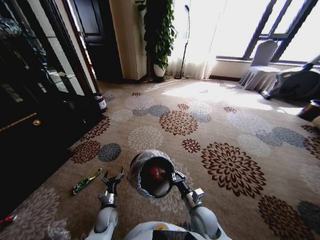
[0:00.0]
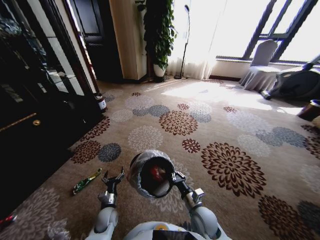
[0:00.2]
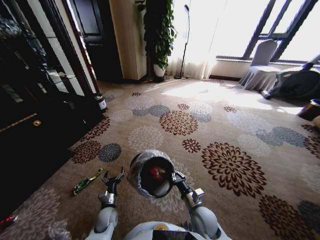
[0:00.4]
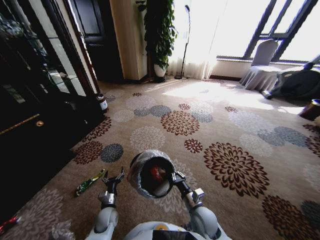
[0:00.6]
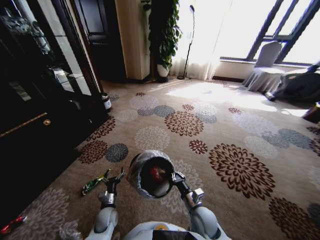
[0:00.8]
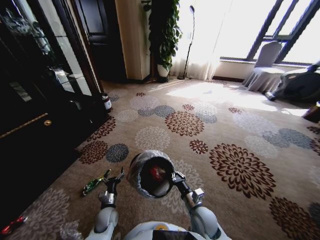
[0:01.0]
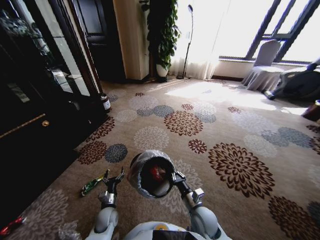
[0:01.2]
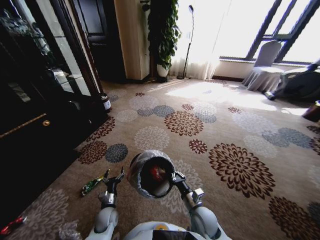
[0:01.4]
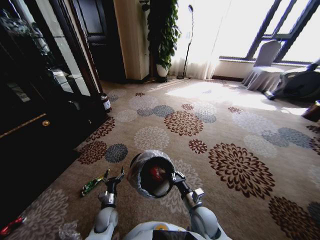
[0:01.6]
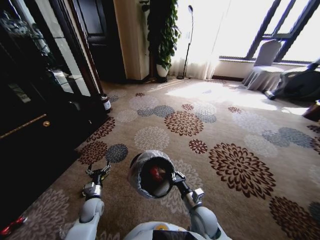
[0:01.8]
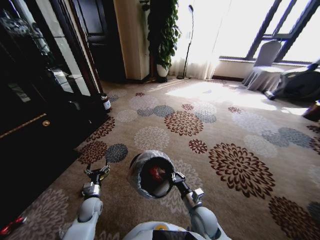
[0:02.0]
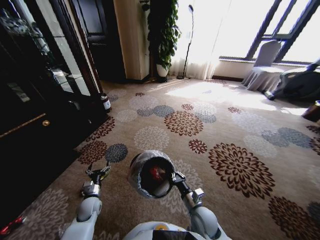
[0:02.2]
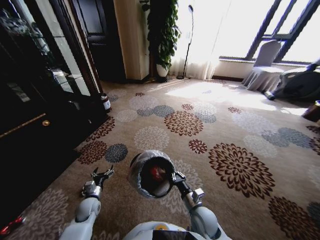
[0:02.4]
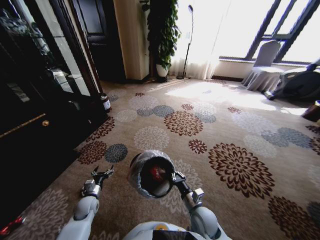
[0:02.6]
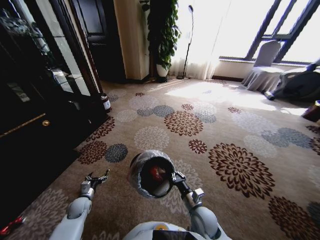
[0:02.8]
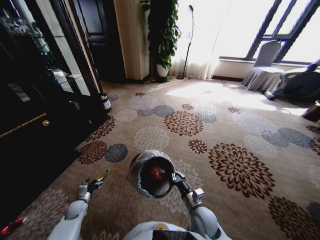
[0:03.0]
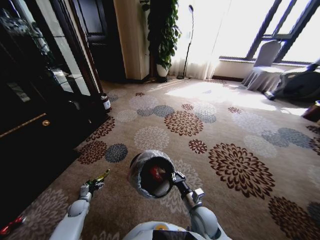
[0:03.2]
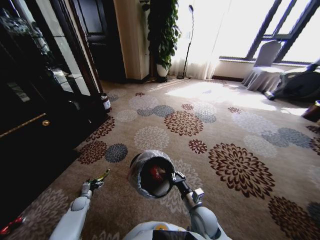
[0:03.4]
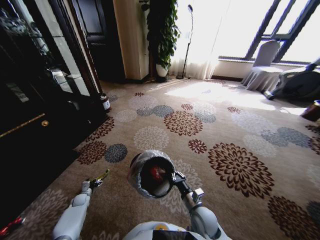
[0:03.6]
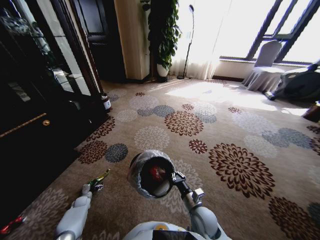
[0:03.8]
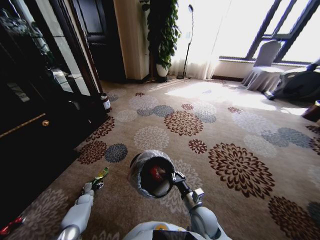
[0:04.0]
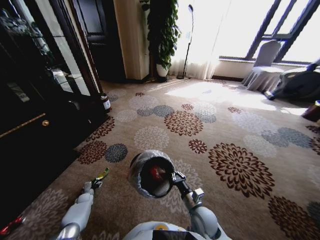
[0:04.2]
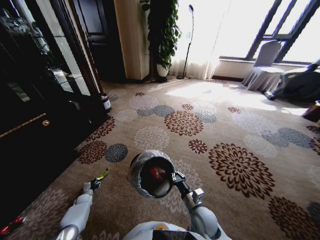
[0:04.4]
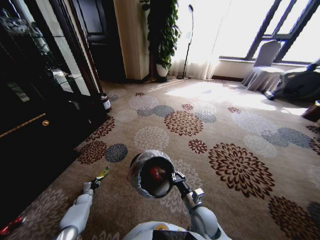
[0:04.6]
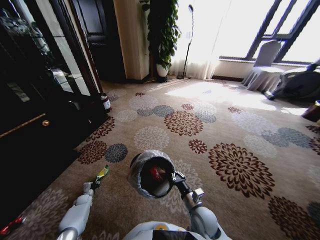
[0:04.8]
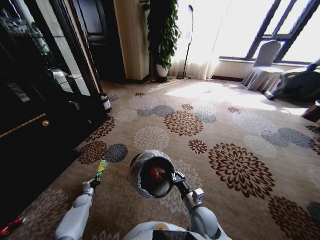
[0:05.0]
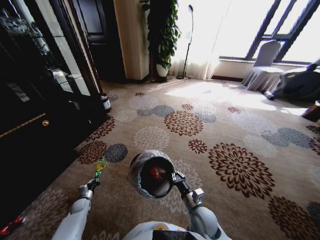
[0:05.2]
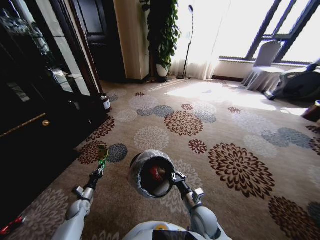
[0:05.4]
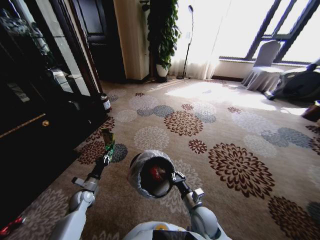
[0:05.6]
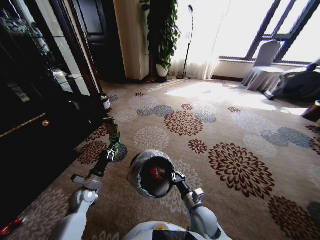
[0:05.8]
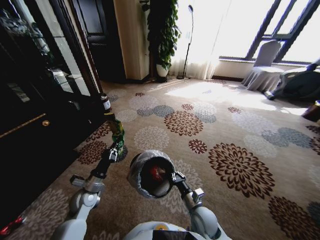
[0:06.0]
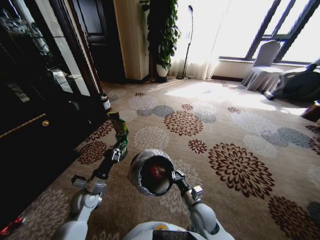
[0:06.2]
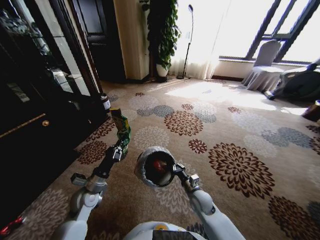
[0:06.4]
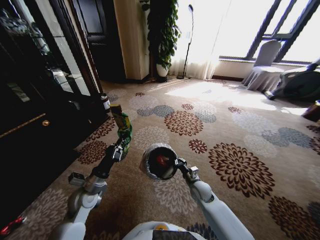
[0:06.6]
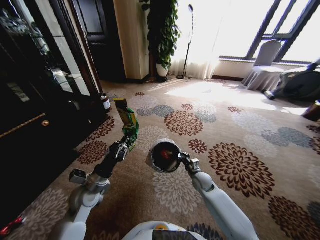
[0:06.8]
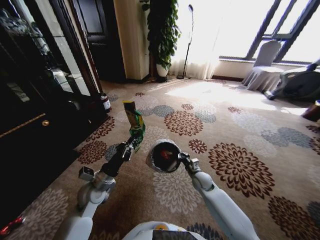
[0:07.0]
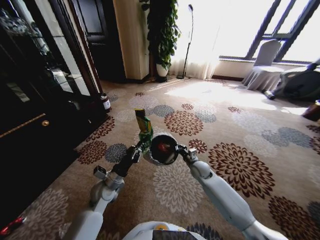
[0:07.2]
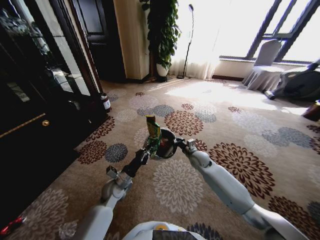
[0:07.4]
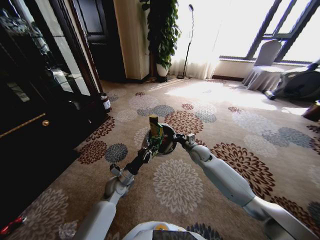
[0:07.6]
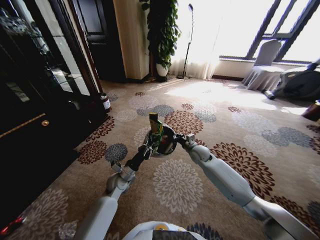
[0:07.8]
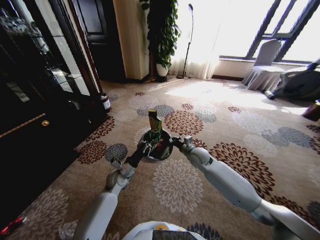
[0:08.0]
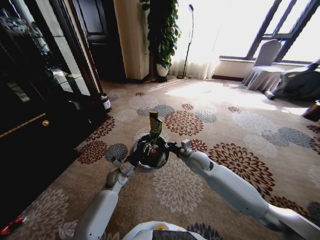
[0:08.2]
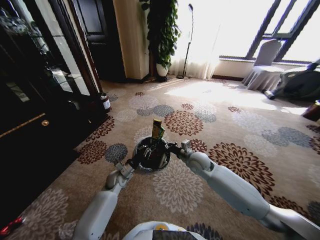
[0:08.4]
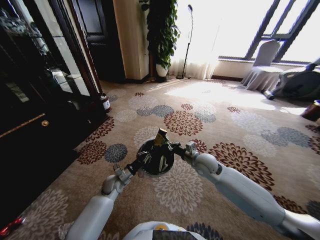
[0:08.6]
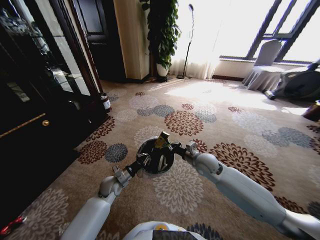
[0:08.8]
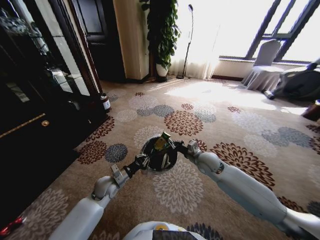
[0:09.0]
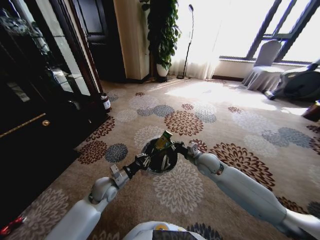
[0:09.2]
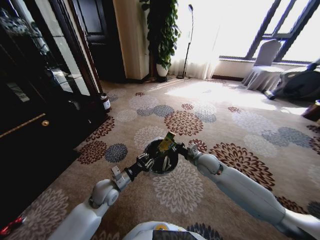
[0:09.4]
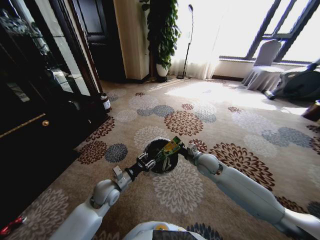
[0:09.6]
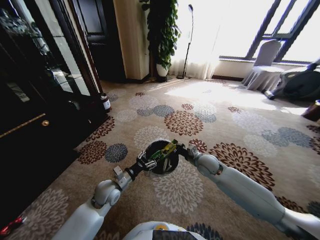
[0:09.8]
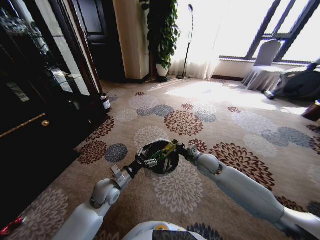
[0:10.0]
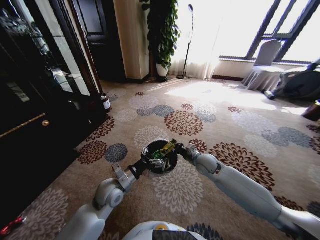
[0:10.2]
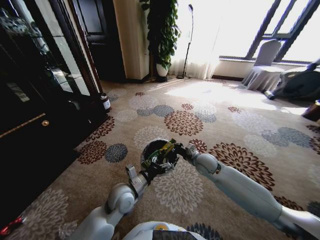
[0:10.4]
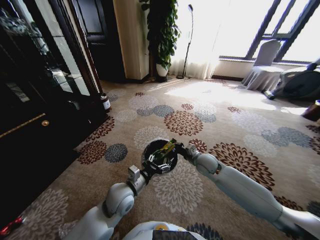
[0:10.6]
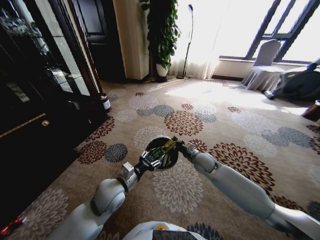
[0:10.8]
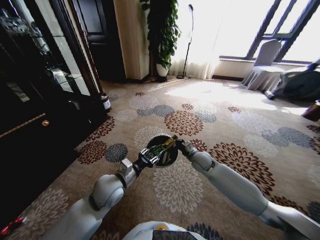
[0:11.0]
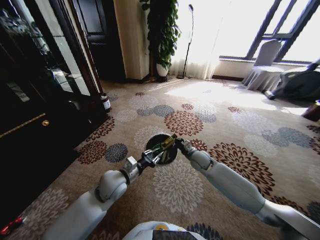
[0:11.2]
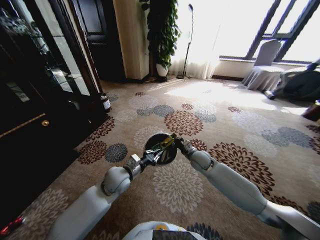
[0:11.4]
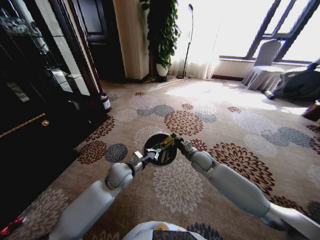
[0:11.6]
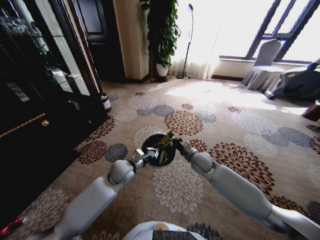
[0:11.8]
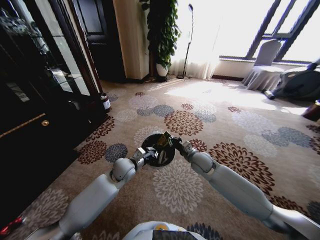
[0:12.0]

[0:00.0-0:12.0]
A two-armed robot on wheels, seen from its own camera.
Task of the whole recording: Pick up the trash from the ground and place it into the trash bin.
0:01.6 to 0:03.0: The left gripper travels to the left by some 20 cm.
0:03.0 to 0:04.4: The left gripper heads downward and forward, covering approximately 10 cm, and closes up.
0:04.4 to 0:06.0: The left gripper travels upward and to the right by roughly 30 cm, and closes up.
0:06.0 to 0:07.6: The left gripper heads to the right and forward, covering approximately 15 cm. The right gripper is displaced forward by roughly 25 cm.
0:07.6 to 0:09.0: The right gripper shifts roughly 10 cm backward.
0:09.0 to 0:10.4: The left gripper shifts about 15 cm to the right, upward and backward, and opens its fingers.
0:10.4 to 0:12.0: The left gripper heads forward, covering some 10 cm, and closes.

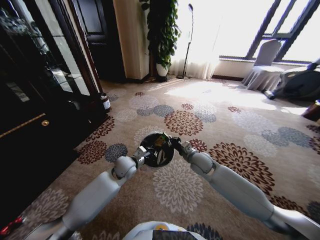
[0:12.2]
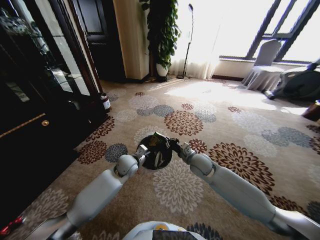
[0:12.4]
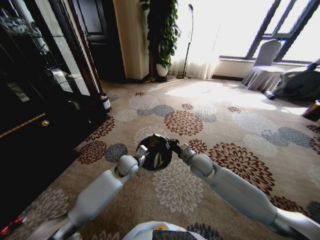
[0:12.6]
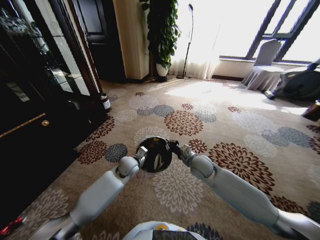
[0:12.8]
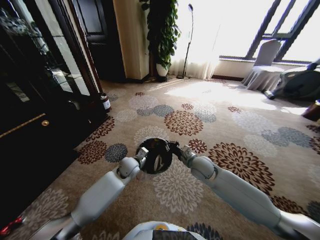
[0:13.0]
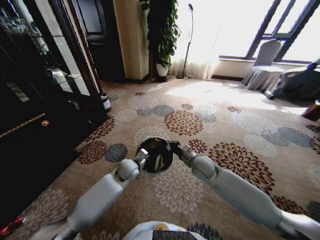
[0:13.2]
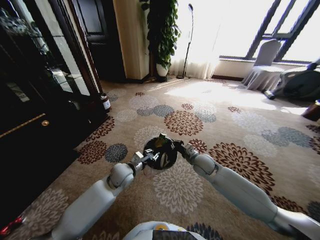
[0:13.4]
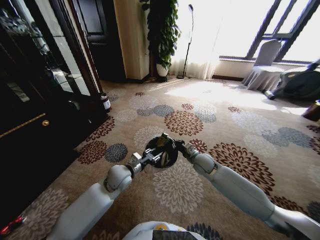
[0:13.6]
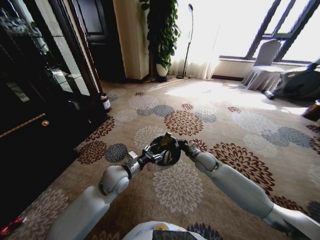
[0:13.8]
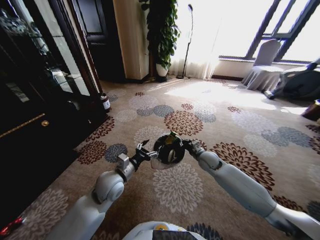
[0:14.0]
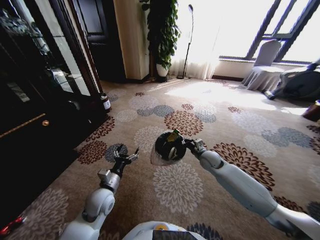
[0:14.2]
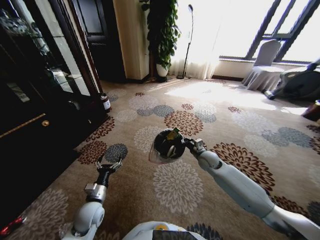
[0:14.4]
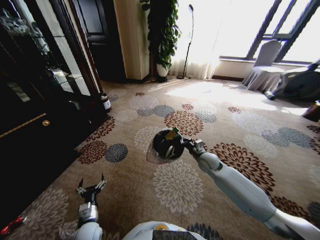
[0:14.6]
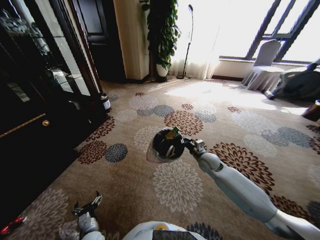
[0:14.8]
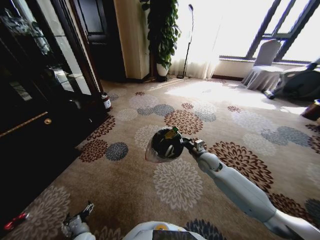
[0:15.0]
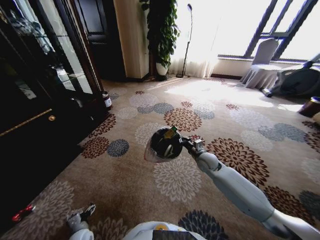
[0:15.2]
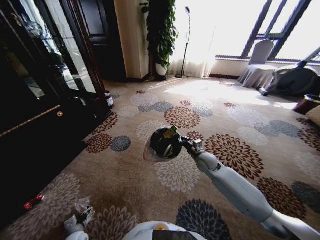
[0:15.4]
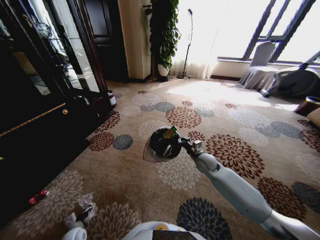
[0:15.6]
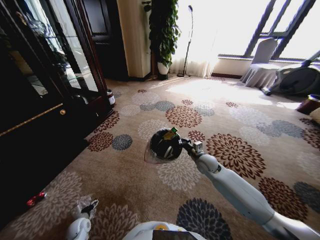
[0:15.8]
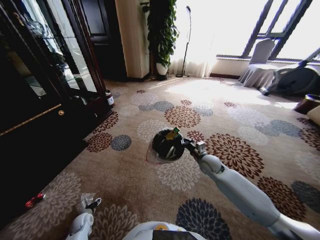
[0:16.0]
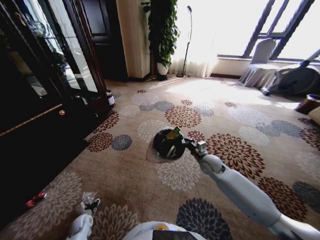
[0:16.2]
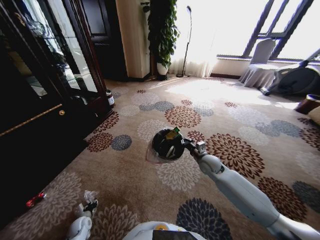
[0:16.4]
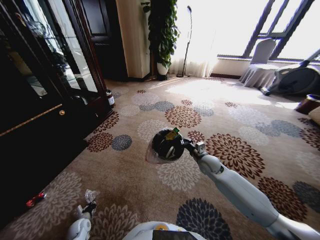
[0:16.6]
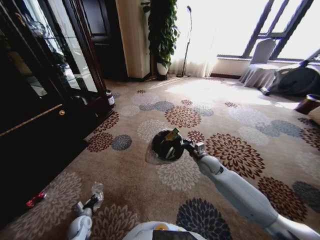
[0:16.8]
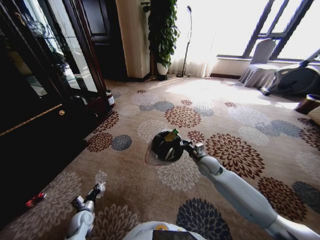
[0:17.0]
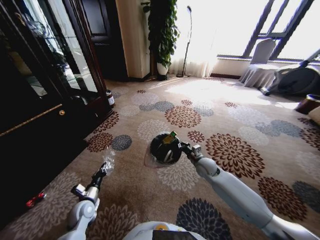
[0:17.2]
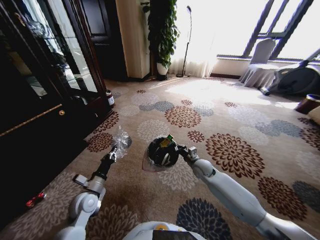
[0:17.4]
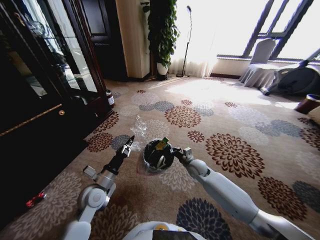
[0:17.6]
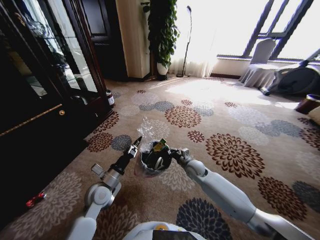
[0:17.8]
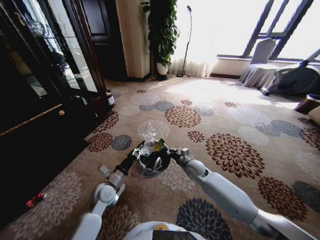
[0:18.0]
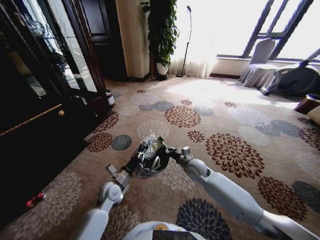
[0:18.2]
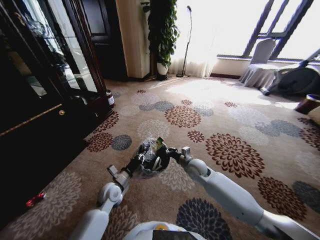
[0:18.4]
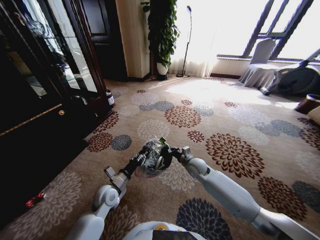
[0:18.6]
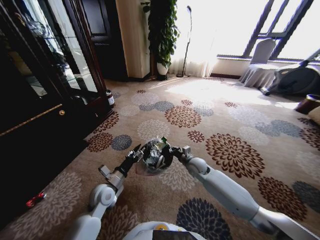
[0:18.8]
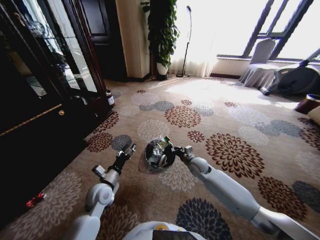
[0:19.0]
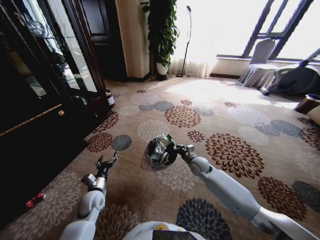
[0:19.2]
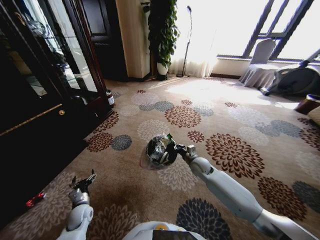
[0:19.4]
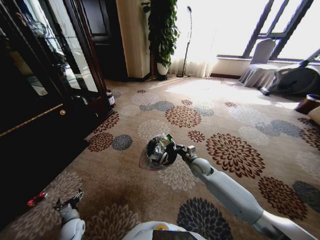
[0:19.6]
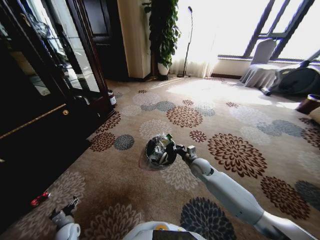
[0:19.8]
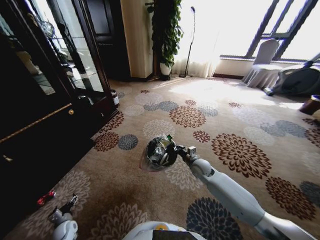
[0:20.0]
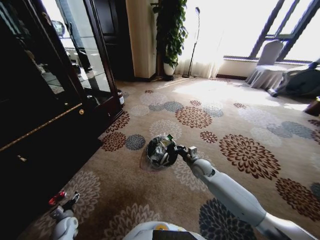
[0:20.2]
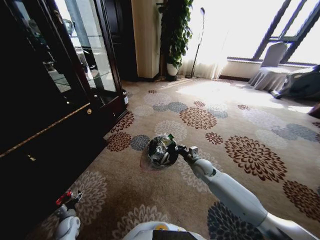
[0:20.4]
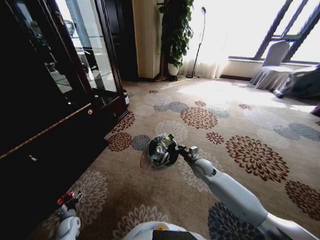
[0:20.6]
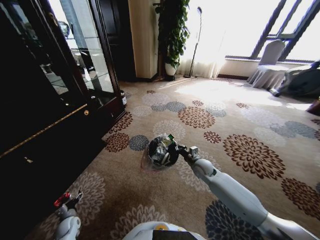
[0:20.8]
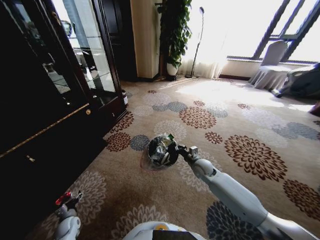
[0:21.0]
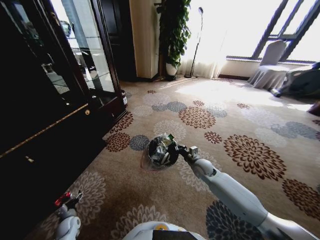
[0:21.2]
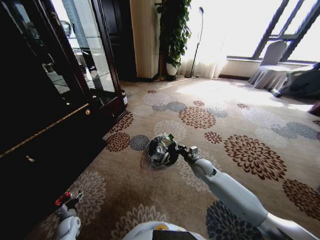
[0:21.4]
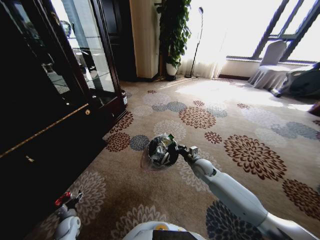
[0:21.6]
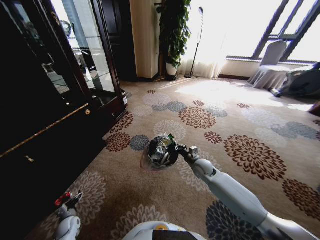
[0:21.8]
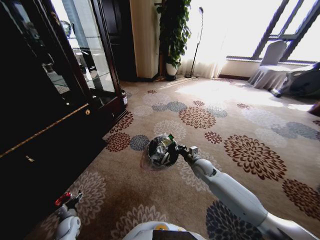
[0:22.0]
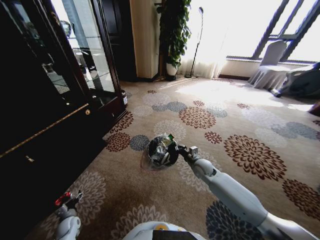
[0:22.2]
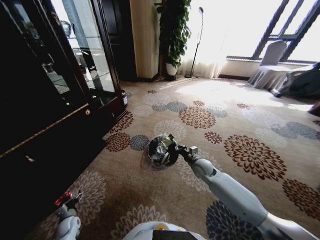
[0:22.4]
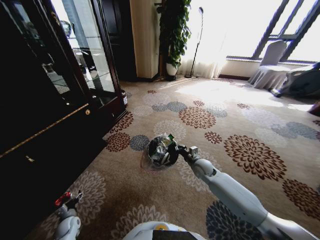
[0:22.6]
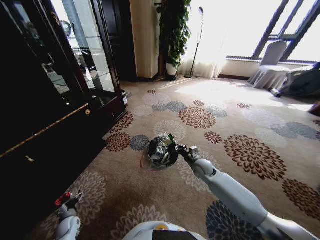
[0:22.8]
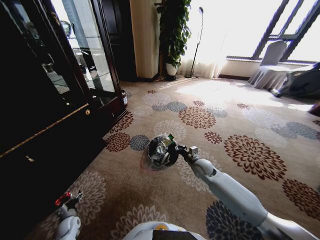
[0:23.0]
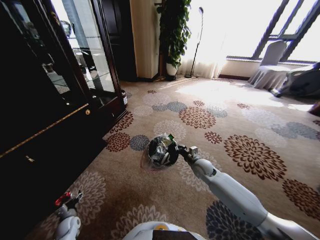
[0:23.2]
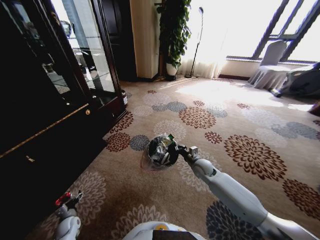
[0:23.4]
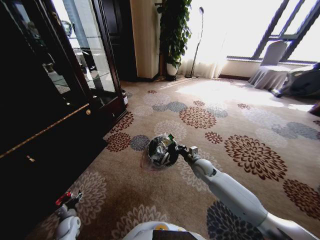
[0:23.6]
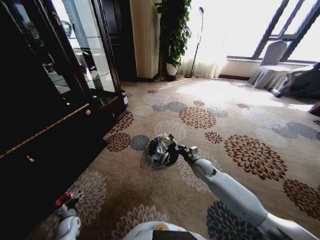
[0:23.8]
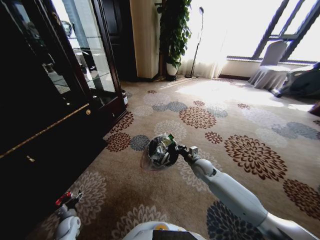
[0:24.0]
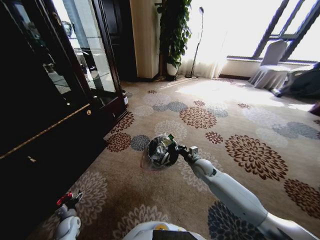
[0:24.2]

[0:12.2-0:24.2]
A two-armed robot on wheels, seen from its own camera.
Task of the whole recording: Pick up the trash from the ground and place it into the trash bin.
0:12.2 to 0:13.8: The left gripper shifts roughly 5 cm backward, and opens up, while the right gripper changes place by roughly 5 cm.
0:13.8 to 0:15.2: The left gripper travels downward, backward and to the left by some 35 cm, and opens up.
0:15.2 to 0:16.6: The left gripper shifts some 10 cm downward and to the left, and closes.
0:16.6 to 0:18.2: The right gripper shifts about 5 cm to the left, while the left gripper goes some 30 cm upward, to the right and forward.
0:18.2 to 0:19.8: The left gripper shifts roughly 30 cm to the left, downward and backward, and opens its fingers.
0:21.2 to 0:24.2: Both grippers stay about where they are.
